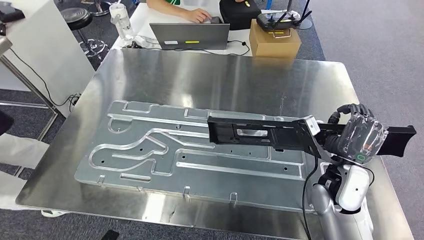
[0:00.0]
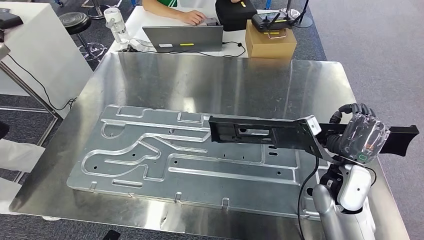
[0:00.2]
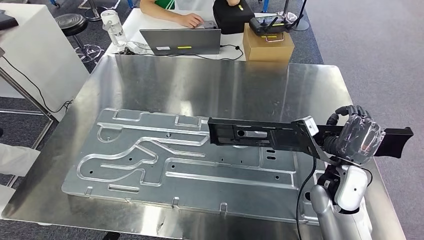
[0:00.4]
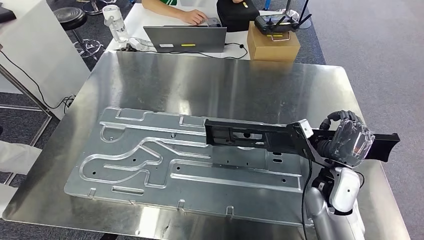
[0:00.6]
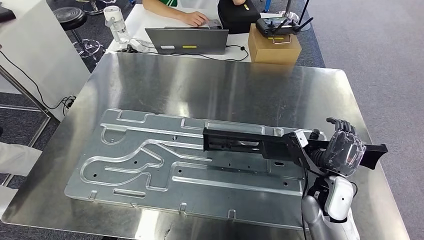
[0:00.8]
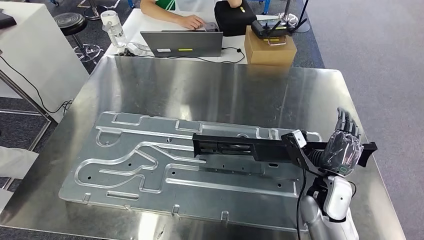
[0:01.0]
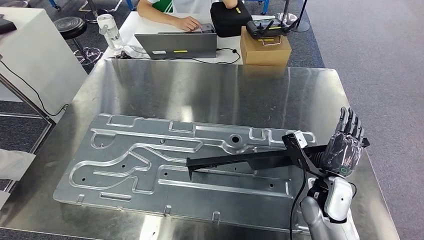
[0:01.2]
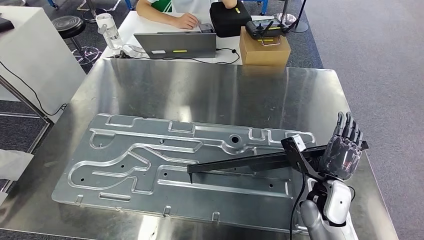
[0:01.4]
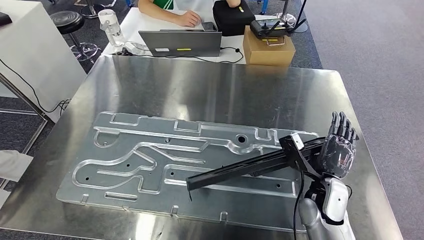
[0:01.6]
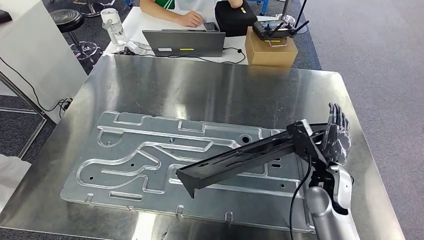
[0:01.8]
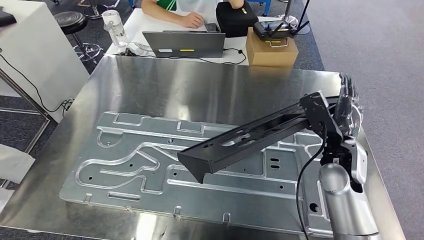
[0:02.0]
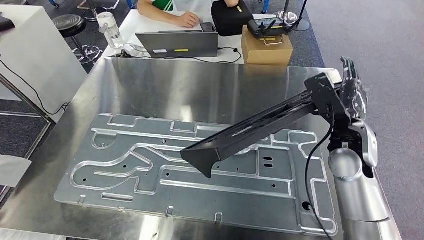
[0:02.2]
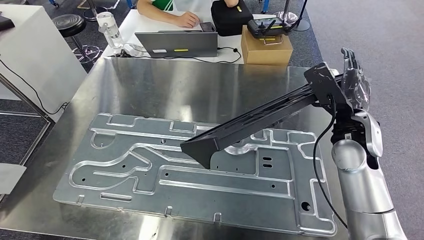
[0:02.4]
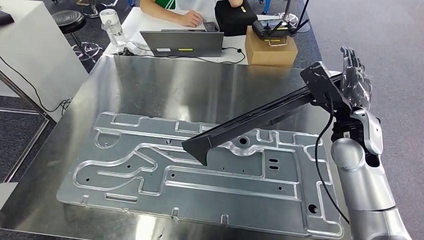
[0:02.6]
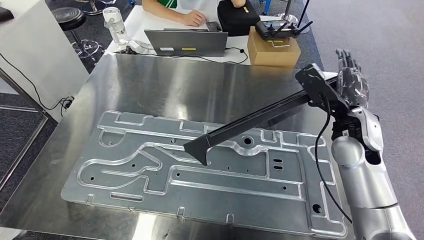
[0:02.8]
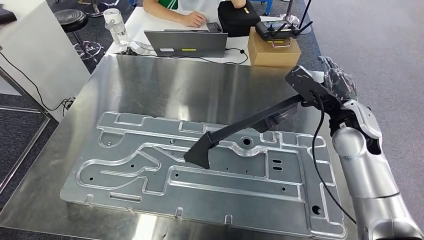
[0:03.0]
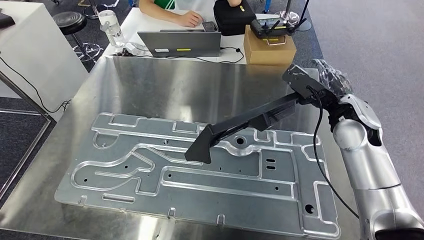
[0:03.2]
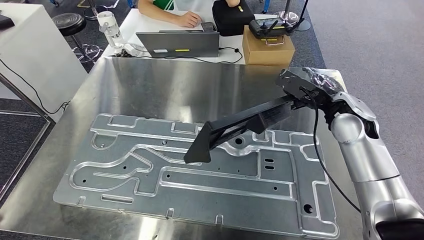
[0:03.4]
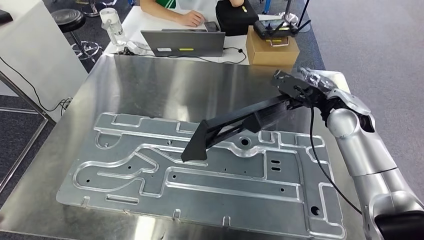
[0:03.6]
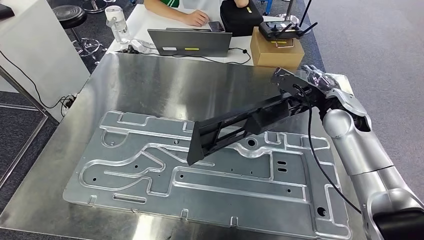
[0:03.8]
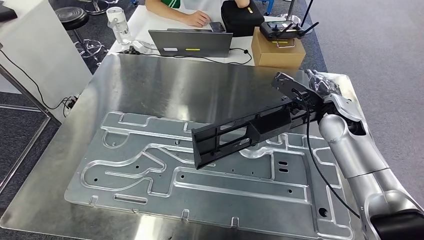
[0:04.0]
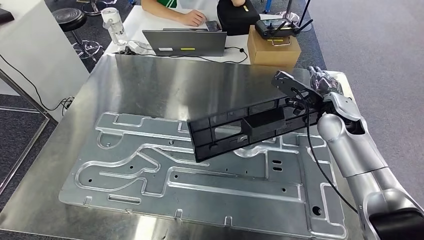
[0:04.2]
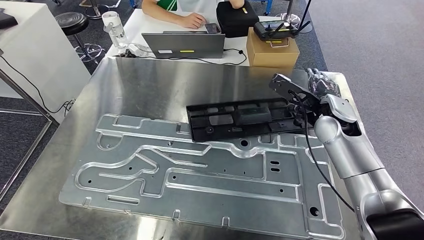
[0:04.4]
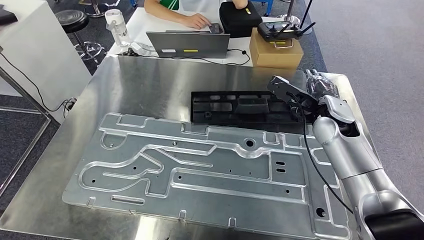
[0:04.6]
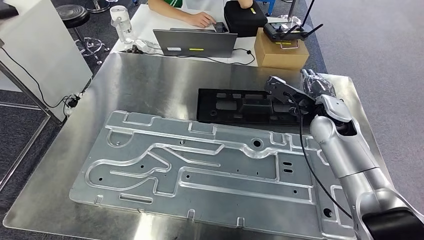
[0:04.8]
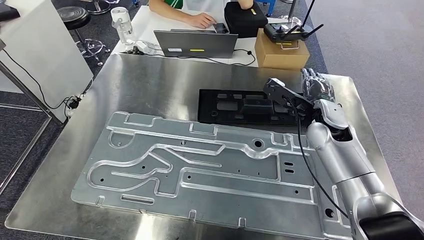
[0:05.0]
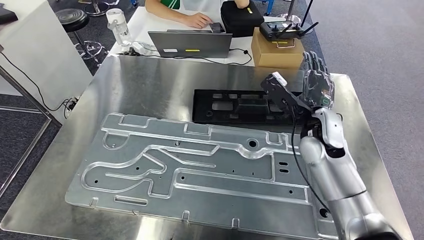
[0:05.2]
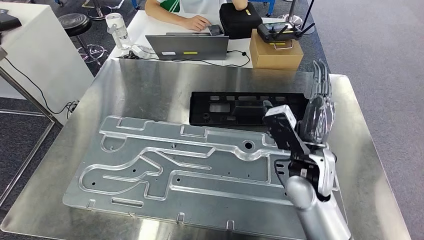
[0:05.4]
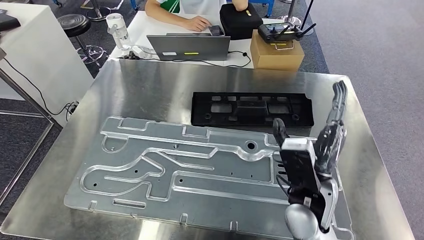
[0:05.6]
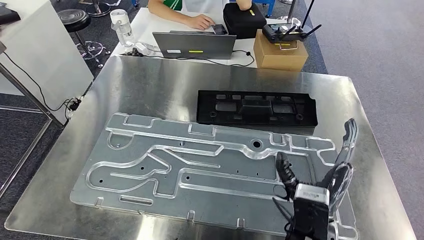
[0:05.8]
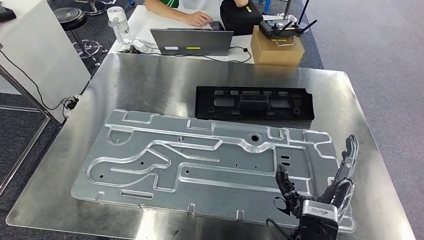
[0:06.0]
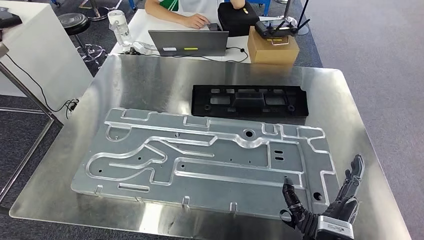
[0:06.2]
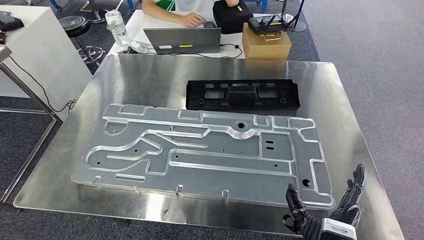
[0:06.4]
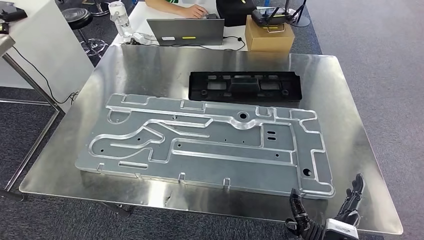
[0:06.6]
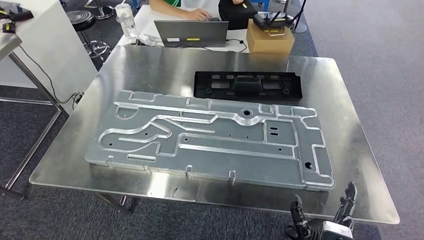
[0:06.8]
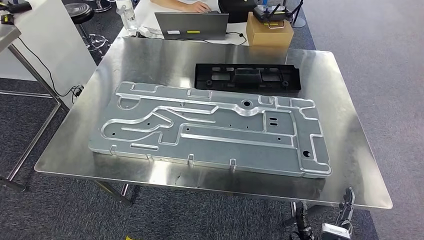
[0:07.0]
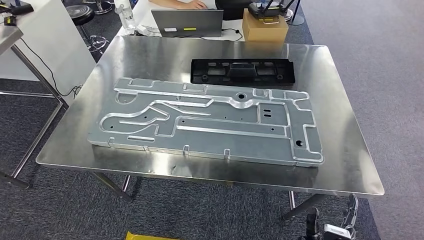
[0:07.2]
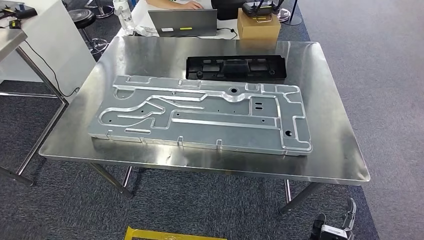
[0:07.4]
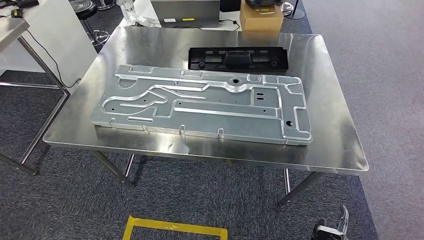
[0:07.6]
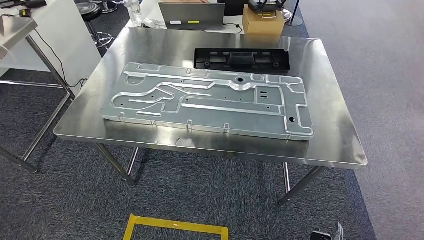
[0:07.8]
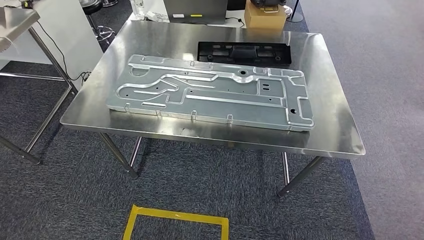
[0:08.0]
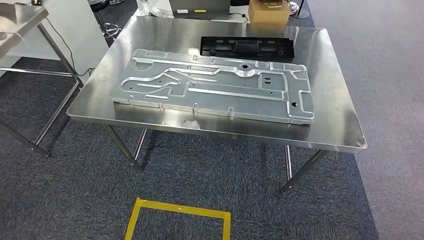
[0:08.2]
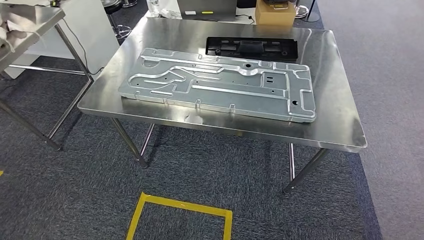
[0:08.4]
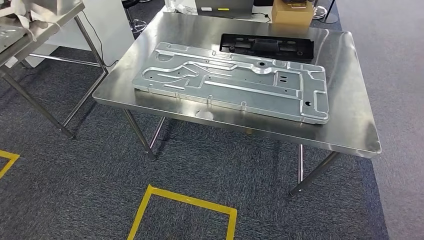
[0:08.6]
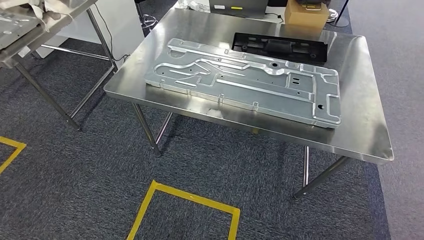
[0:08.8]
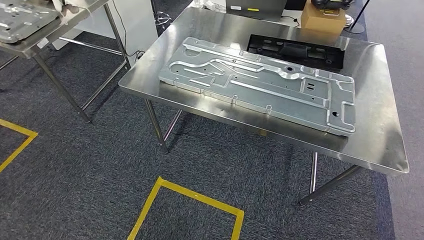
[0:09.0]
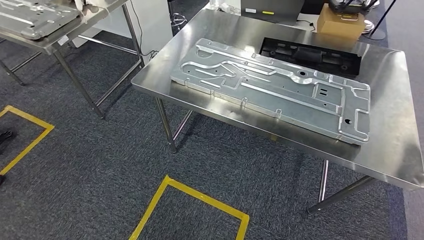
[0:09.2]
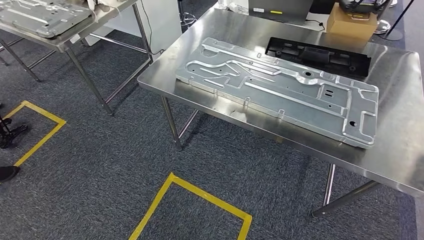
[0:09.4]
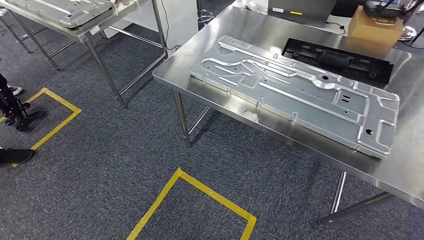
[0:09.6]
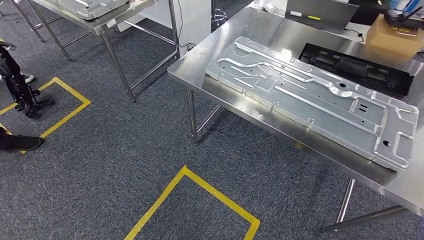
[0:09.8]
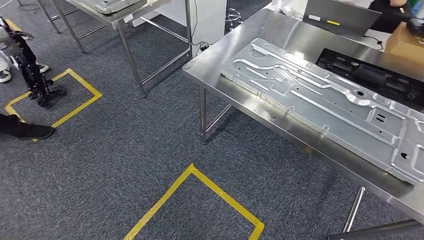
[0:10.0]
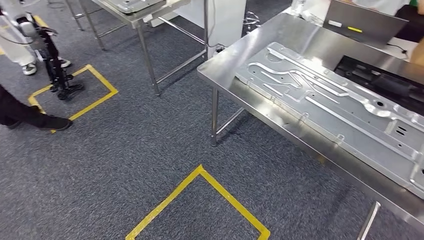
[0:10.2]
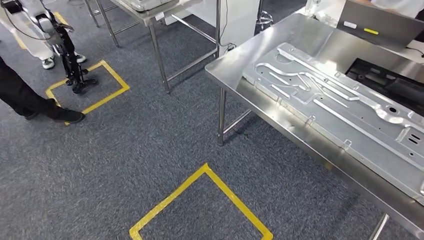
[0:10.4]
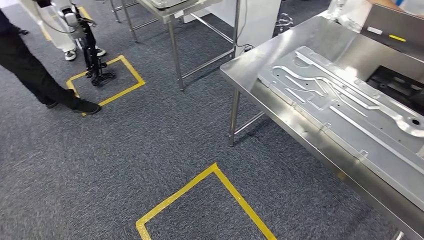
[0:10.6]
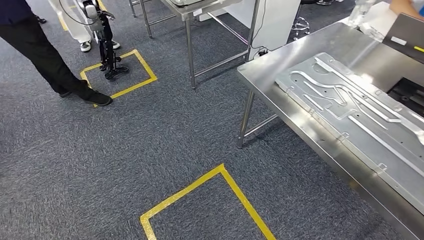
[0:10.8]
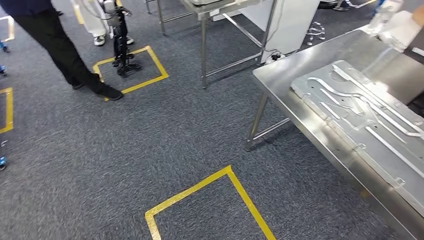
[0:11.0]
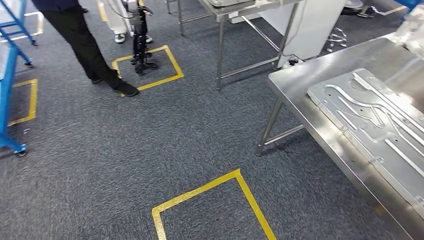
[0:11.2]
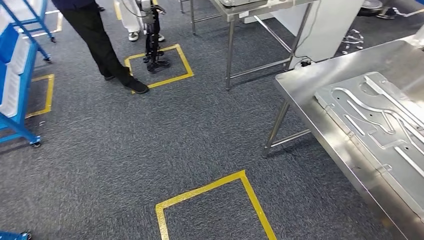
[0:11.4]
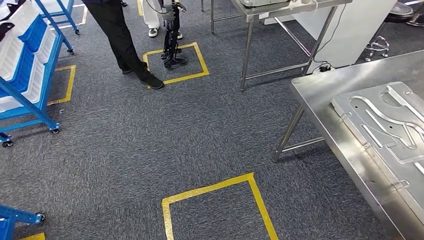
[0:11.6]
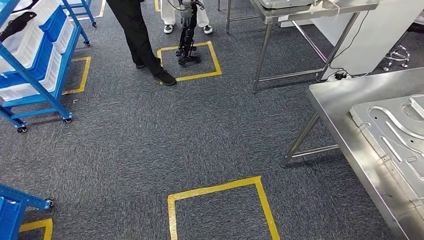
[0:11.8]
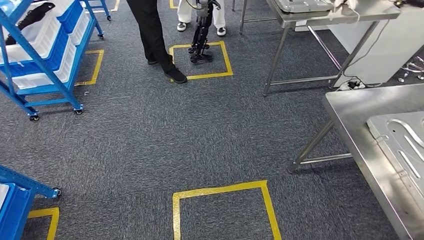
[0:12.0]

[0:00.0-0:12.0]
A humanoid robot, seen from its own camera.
Step, 0:00.0 to 0:08.2: Insert the large material into the corresponding slot on the workbench.

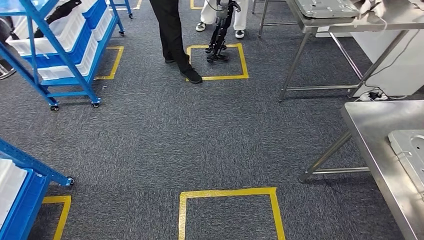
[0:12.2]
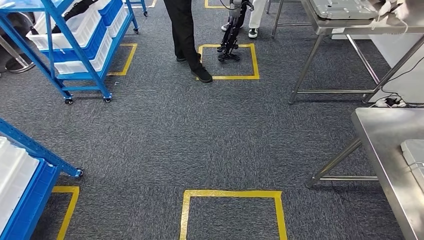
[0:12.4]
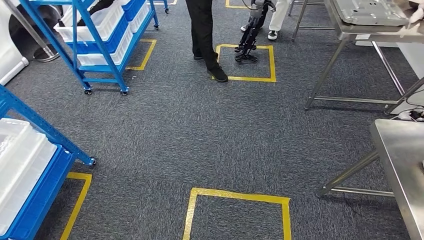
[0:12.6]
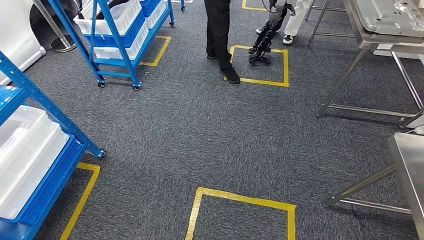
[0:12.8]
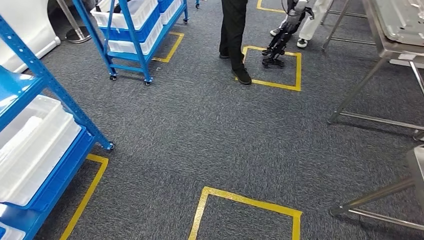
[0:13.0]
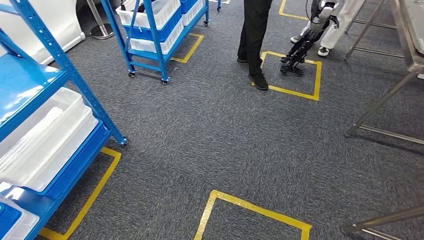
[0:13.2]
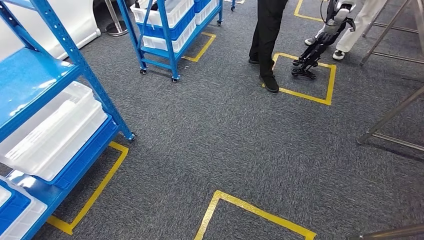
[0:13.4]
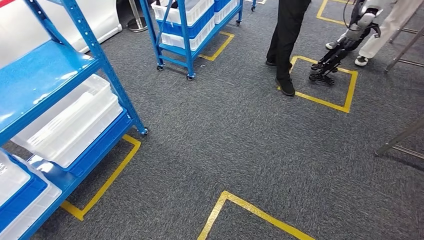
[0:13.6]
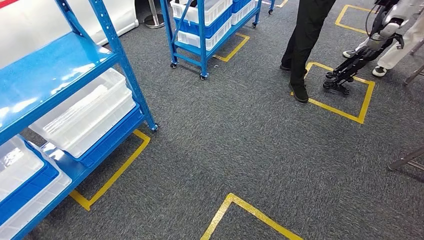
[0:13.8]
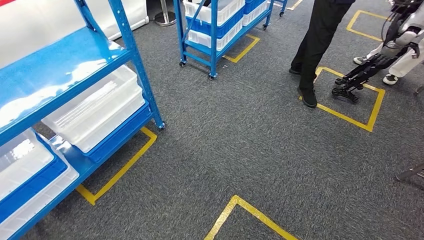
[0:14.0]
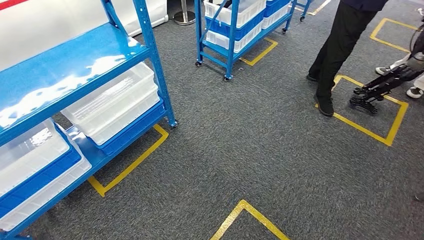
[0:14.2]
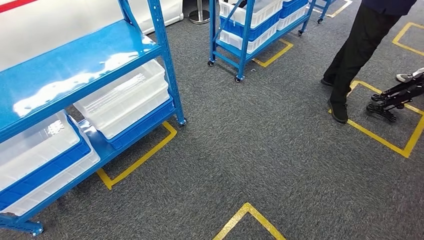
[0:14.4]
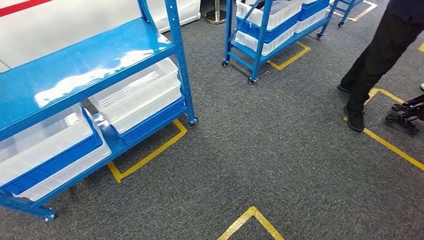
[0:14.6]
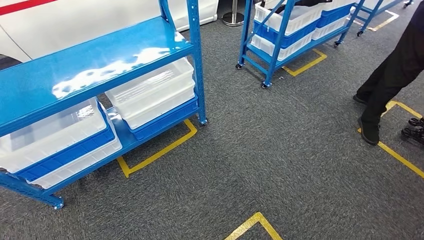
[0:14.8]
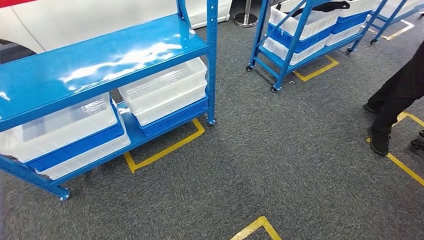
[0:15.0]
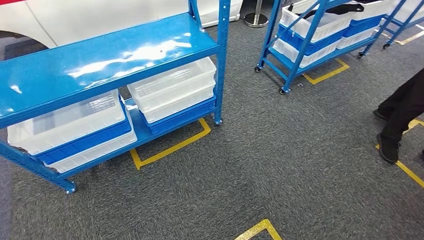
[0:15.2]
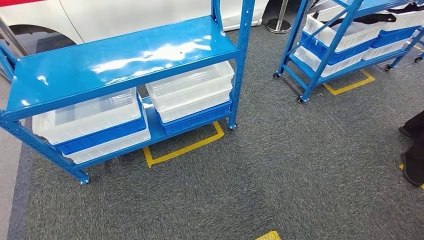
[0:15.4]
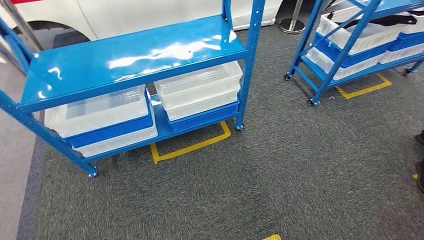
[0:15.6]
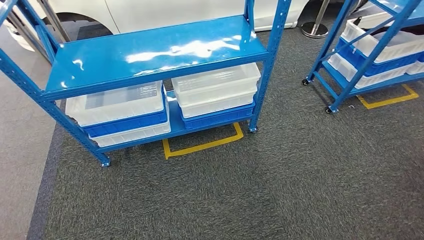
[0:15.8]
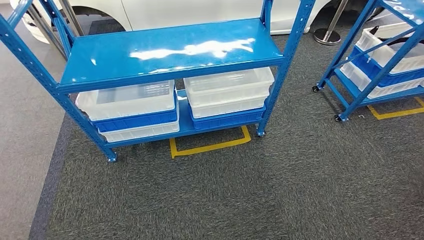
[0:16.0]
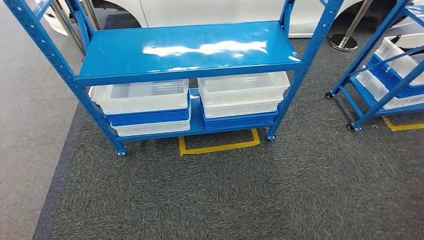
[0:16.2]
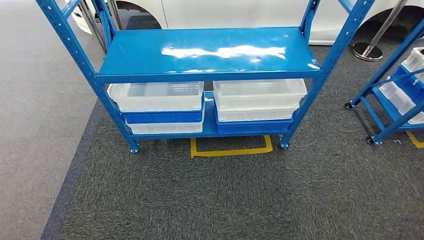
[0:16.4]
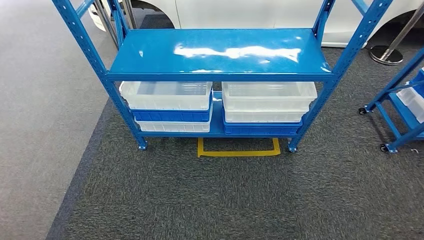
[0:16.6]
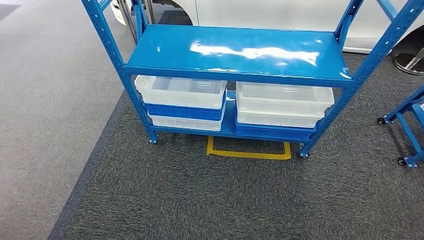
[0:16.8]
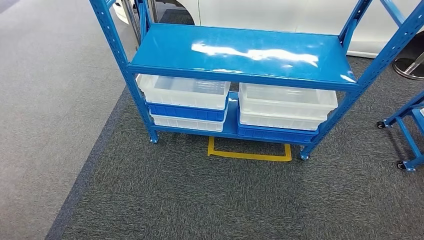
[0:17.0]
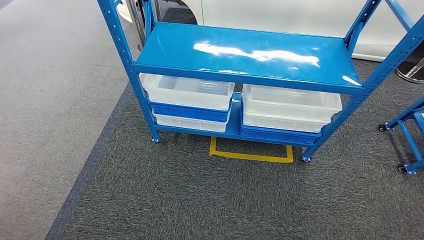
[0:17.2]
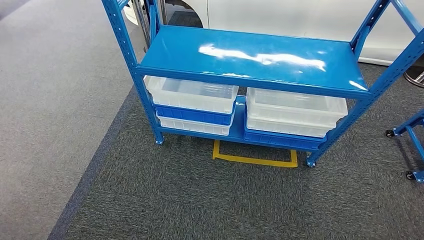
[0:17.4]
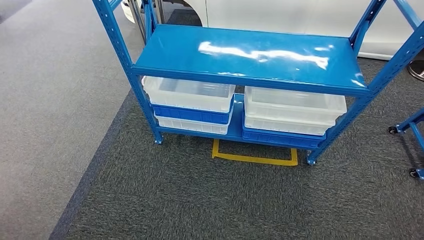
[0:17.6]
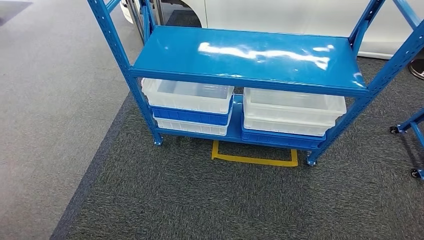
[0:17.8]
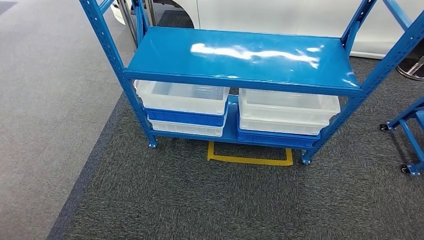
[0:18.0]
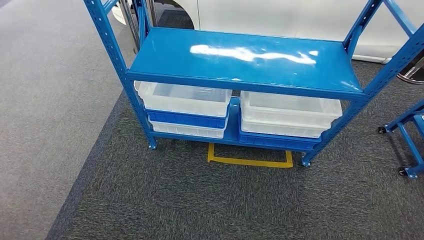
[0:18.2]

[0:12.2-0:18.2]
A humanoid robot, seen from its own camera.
Step, 0:12.2 to 0:18.2: Return to the initial position at the shelf.
